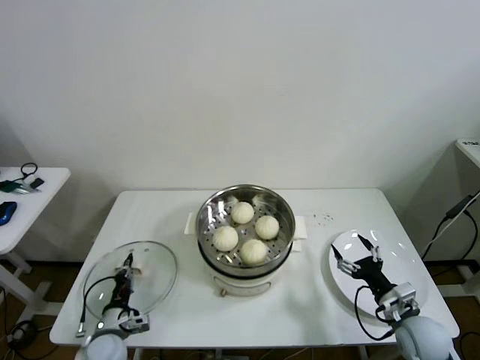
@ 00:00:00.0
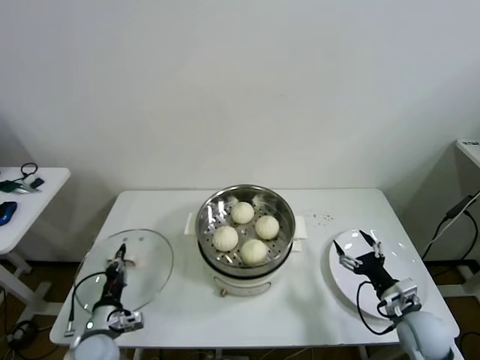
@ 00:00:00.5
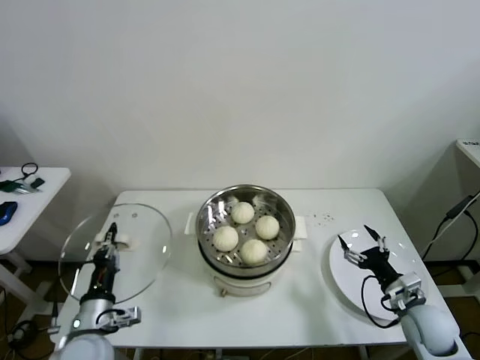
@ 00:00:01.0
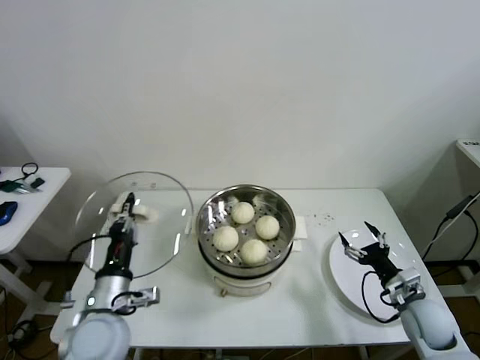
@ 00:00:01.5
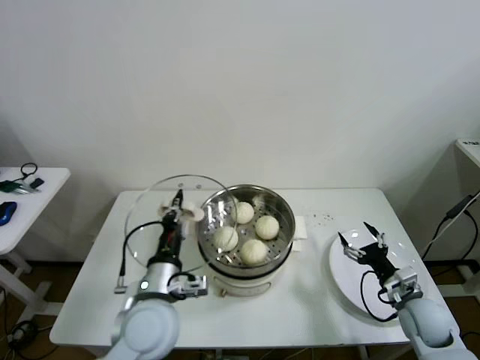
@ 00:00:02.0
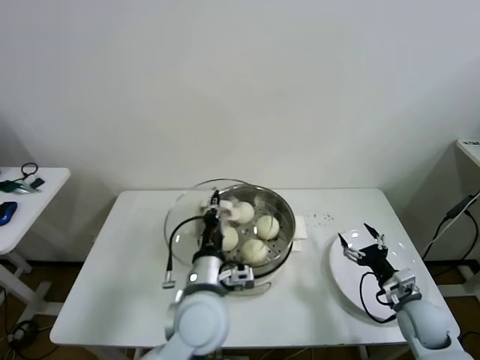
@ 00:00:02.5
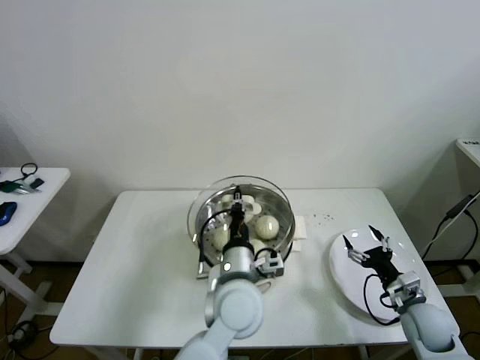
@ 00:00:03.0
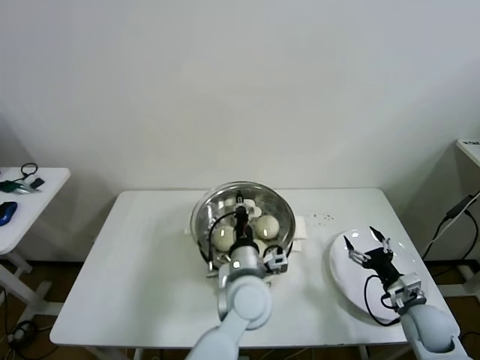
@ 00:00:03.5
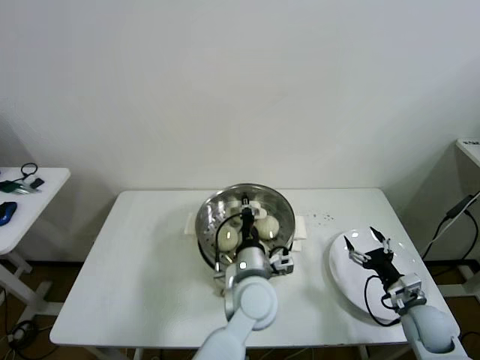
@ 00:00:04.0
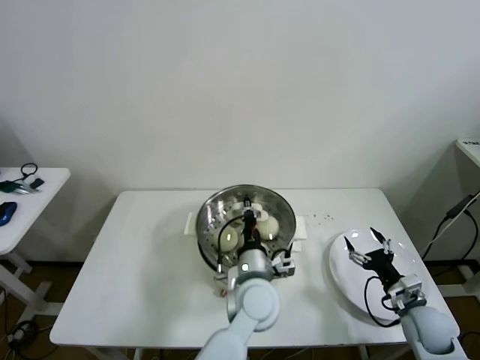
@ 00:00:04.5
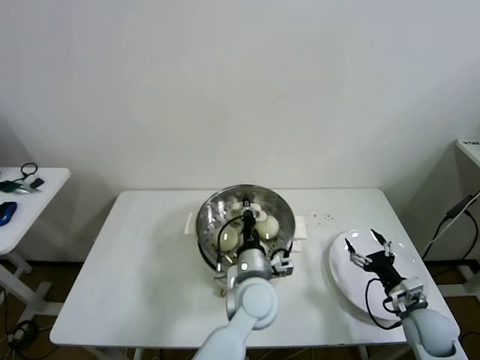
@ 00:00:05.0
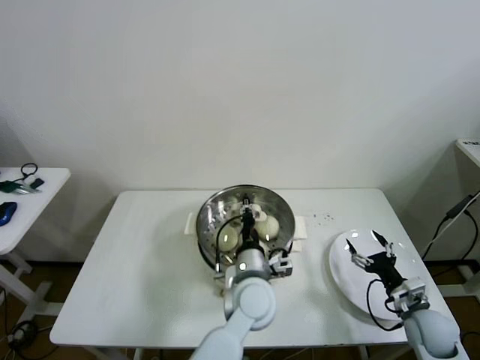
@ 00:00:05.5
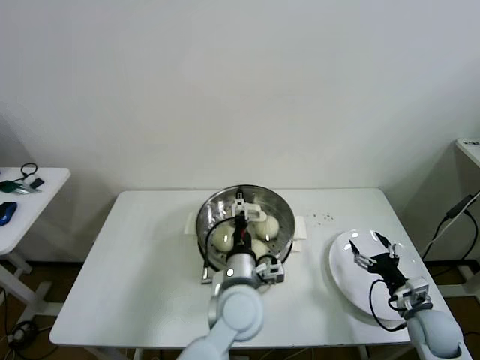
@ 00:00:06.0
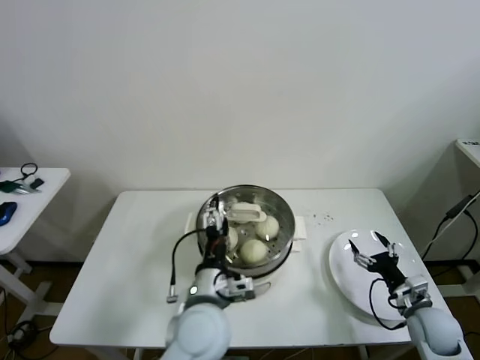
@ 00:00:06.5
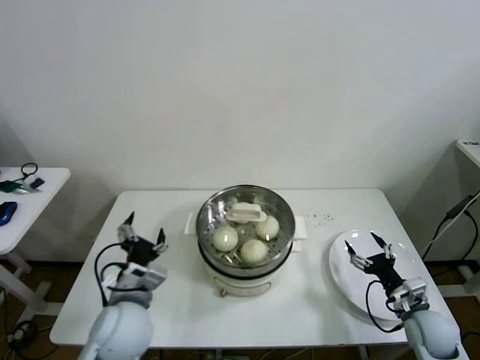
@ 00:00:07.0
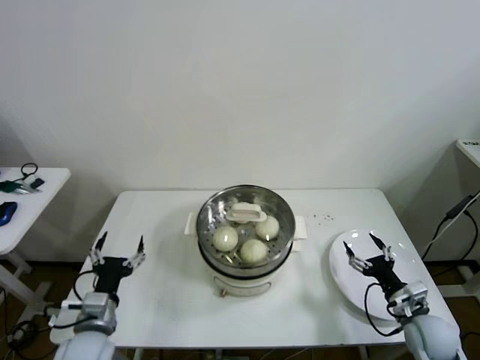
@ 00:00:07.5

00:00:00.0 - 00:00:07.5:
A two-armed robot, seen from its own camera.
Task of the whole recording: take steamed baozi put them in steamer then cover it.
Step, 00:00:00.5 - 00:00:06.0: Place the pot lid on the steamer with left gripper.
00:00:00.0 - 00:00:02.0: The left gripper travels upward and to the right by about 25 cm.
00:00:02.0 - 00:00:04.0: The left gripper goes about 20 cm to the right.
00:00:04.0 - 00:00:05.5: The grippers make only small movements.
00:00:05.5 - 00:00:07.5: The left gripper moves to the left, approximately 30 cm, and opens up.
